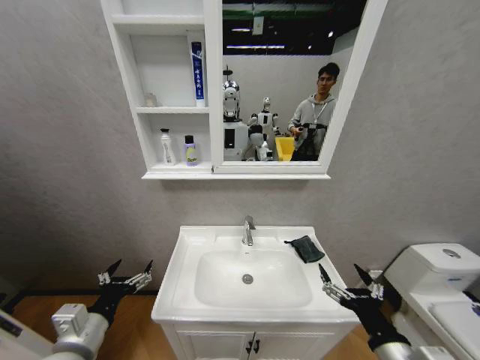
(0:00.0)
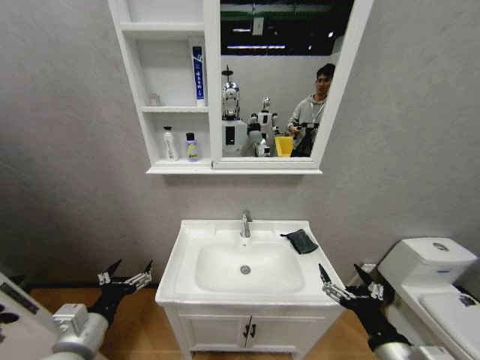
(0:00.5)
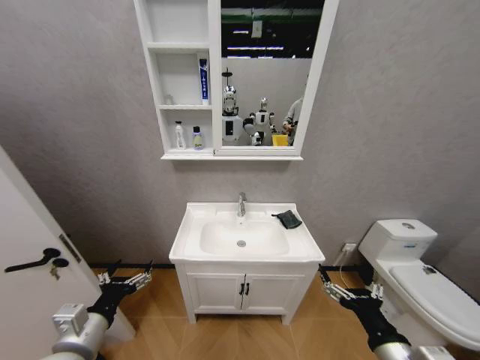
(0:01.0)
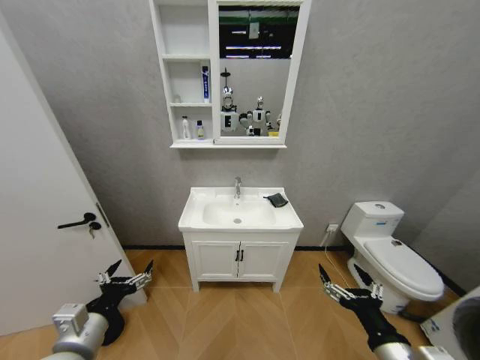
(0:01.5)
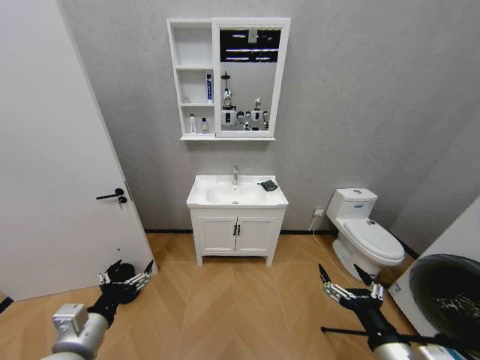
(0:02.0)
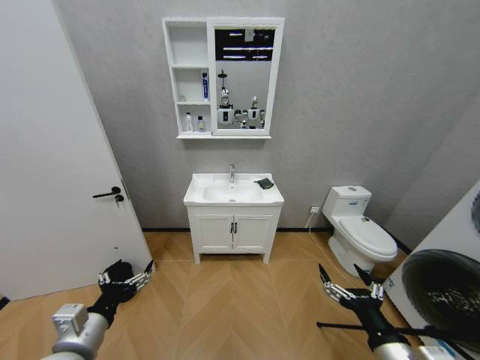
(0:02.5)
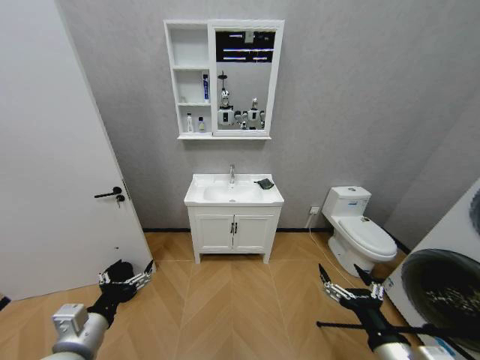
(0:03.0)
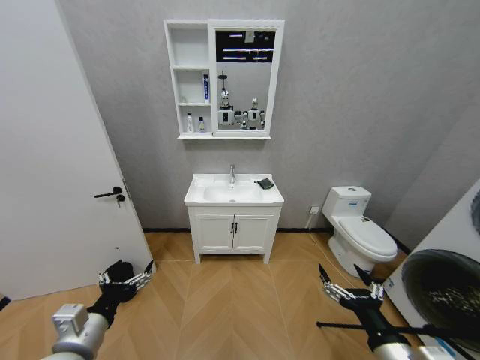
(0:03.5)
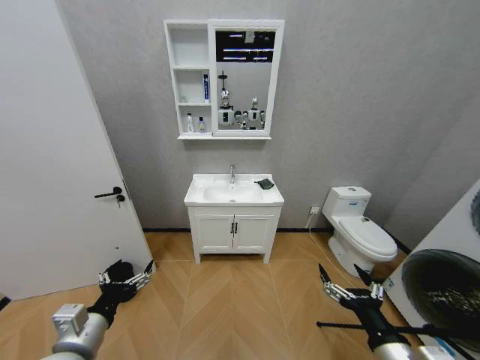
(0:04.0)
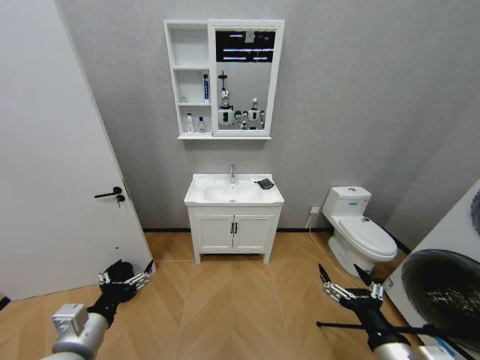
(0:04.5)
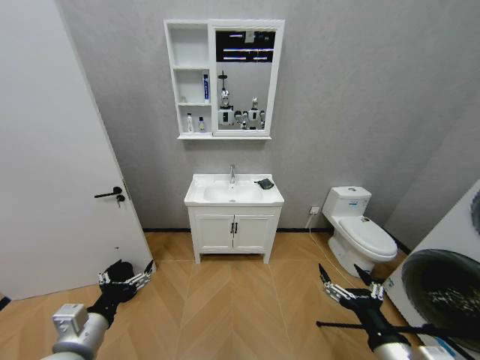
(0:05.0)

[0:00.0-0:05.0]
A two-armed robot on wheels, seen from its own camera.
Task of the whole recording: Move facial cleanser and shampoo from washbasin to cabinet, then wipe washbasin with towel.
0:02.5 to 0:05.0: Both grippers stay put.
